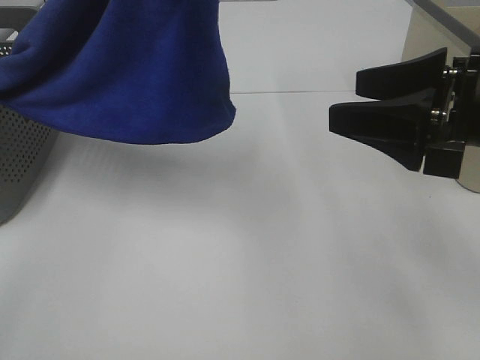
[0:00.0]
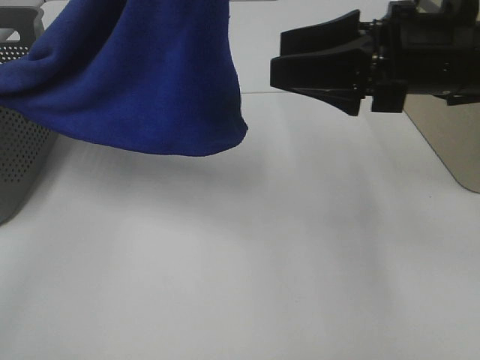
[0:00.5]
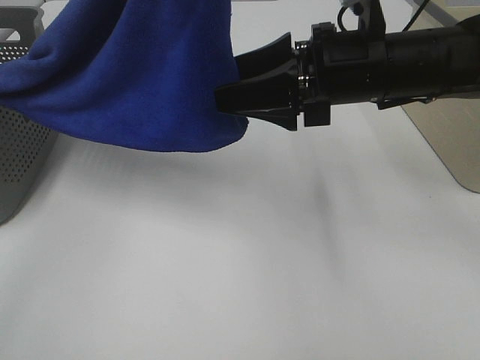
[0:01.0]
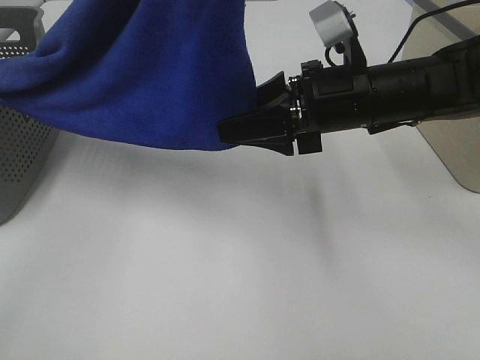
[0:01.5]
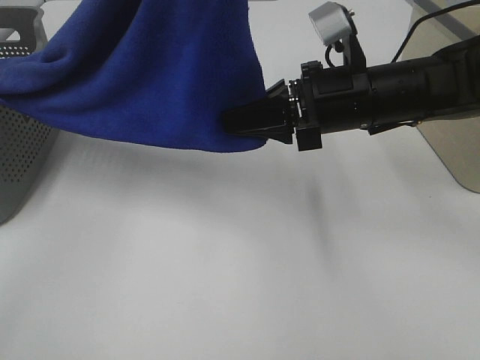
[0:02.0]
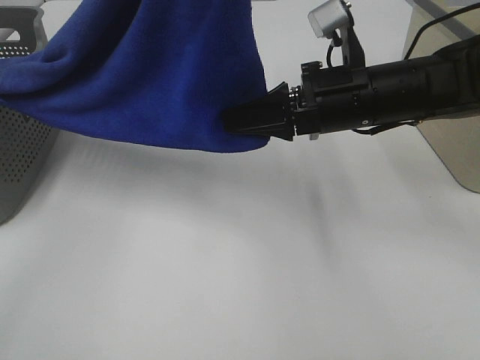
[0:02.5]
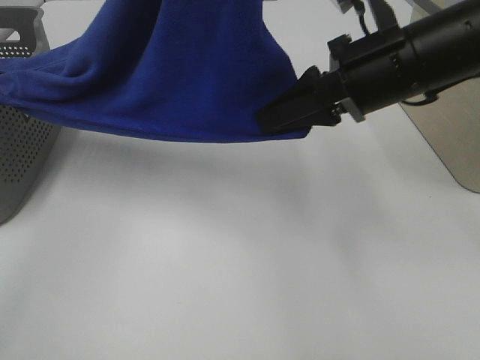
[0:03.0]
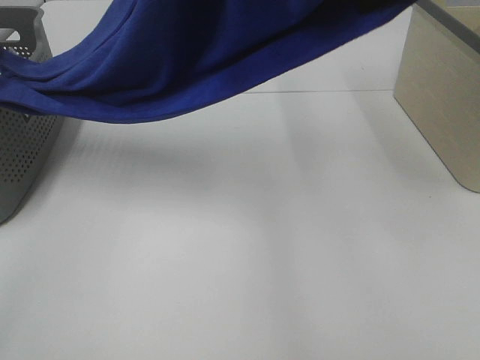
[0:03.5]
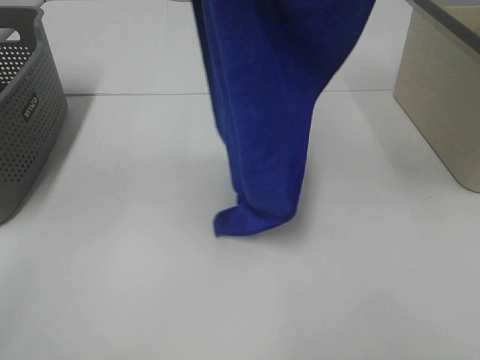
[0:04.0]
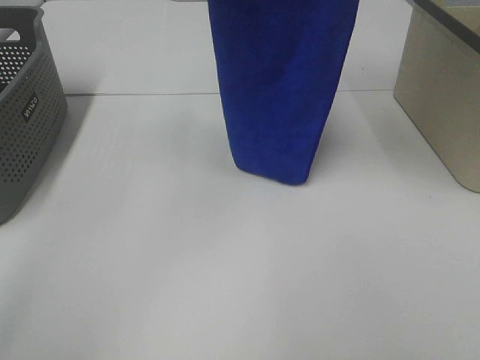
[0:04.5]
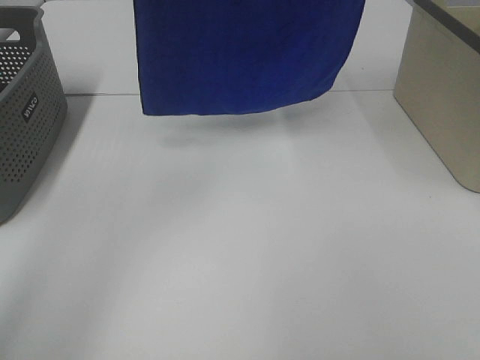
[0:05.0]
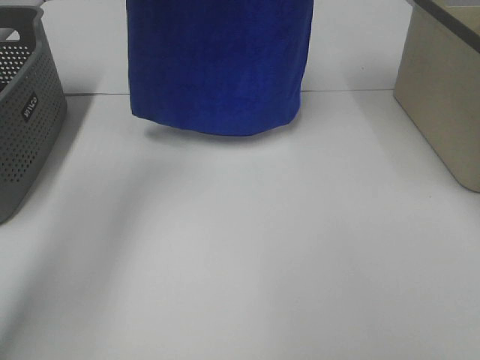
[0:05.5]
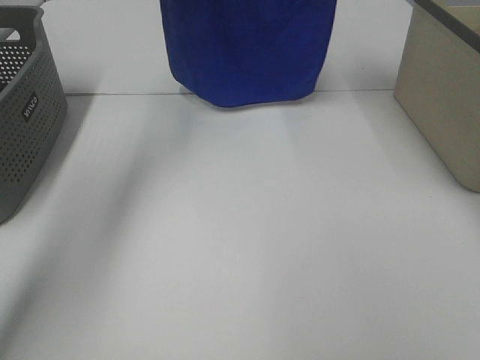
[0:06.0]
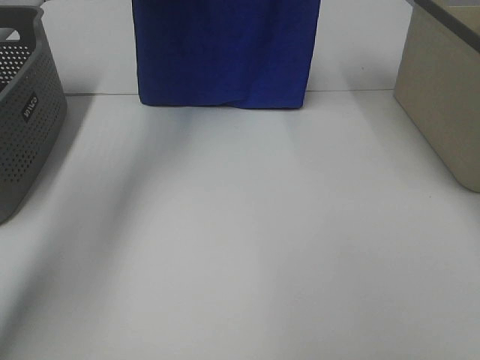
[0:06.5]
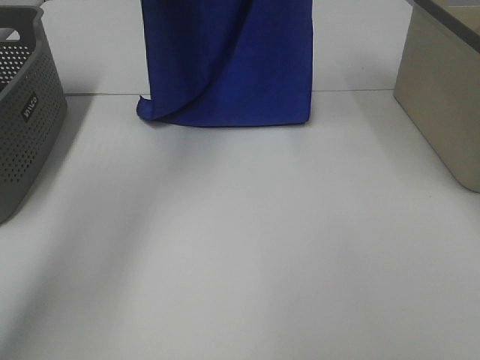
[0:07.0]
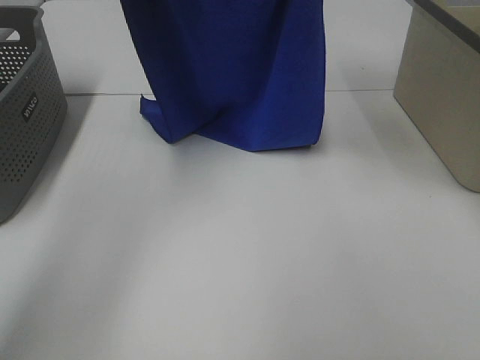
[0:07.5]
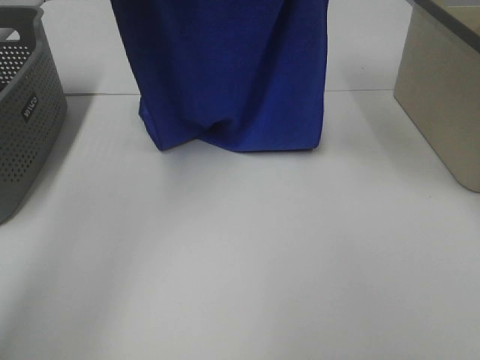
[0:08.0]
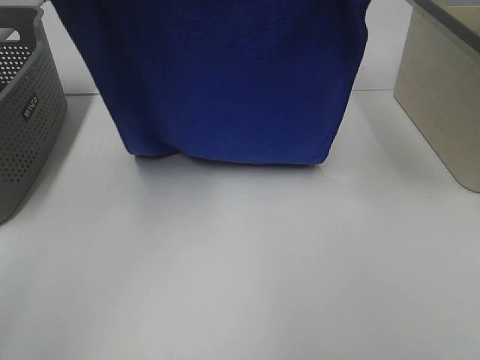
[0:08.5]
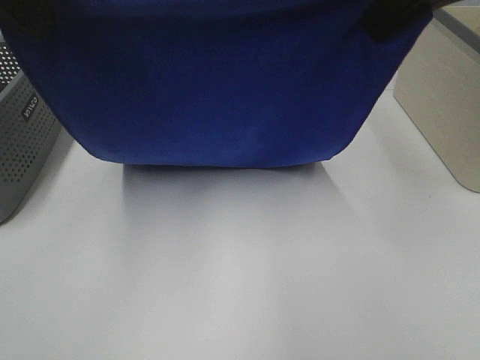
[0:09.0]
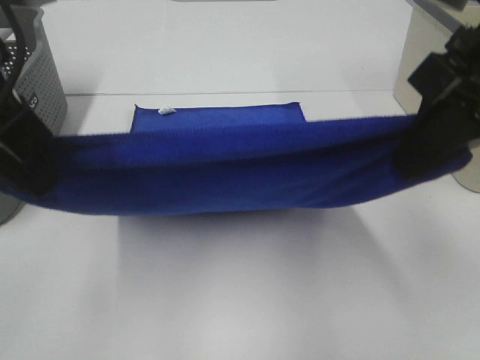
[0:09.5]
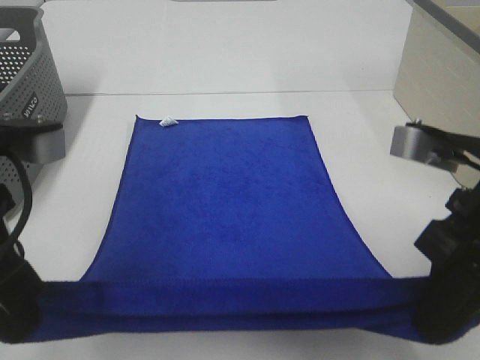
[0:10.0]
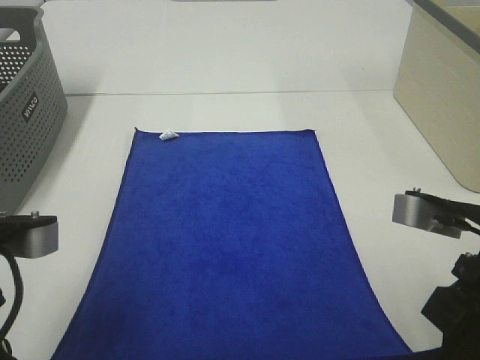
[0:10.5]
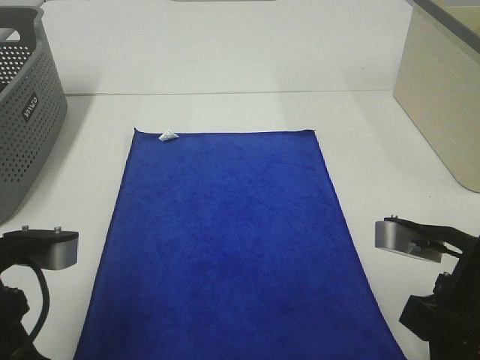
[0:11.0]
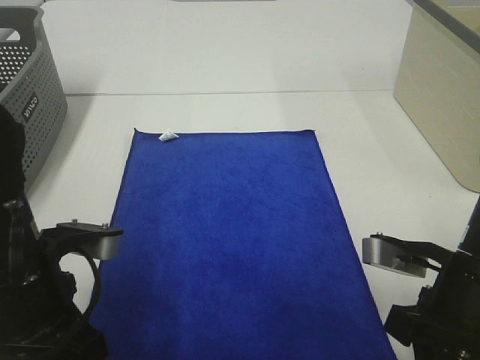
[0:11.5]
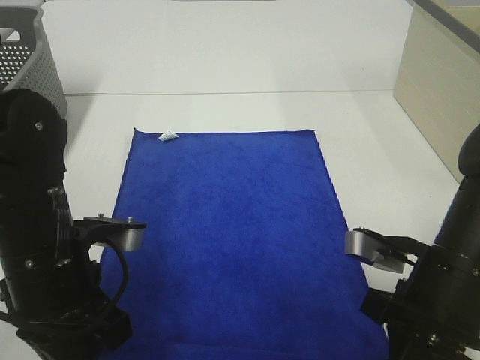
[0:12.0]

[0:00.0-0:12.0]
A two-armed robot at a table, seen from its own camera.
Task of the whole recording: Remove the towel and place it.
Step, 0.0 to 2.0 s: Right hand: grab a corner of the blue towel and straighten it.
Step, 2.5 to 8.5 s: Left hand: spread the blue towel flat on the table.
Step, 2.5 to 8.5 s: Right hand: spread the blue towel flat on the table.
0.0 to 2.0 s: The right gripper shifts some 15 cm forward, to the left and downward, and closes up.
2.0 to 4.0 s: The right gripper moves upward, some 30 cm, while the left gripper changes place by approximately 5 cm.
4.0 to 6.0 s: Both grippers travel together forward, approximately 20 cm.
6.0 to 8.0 s: The two grippers go roughly 10 cm backward.
8.0 to 10.0 s: Both grippers move backward and downward, some 30 cm.
10.0 to 12.0 s: The grippers both shift downward by about 10 cm.

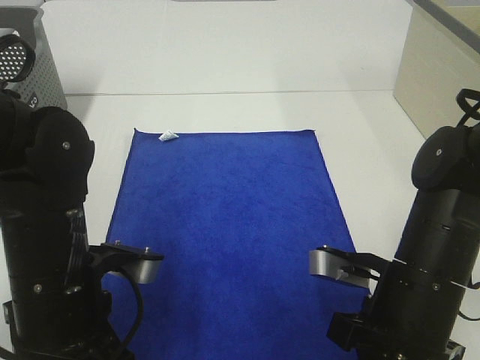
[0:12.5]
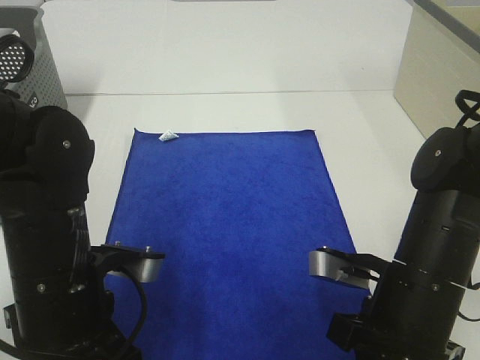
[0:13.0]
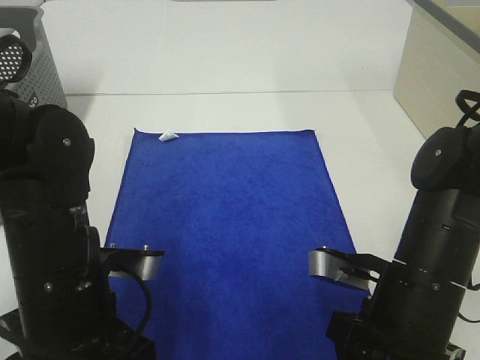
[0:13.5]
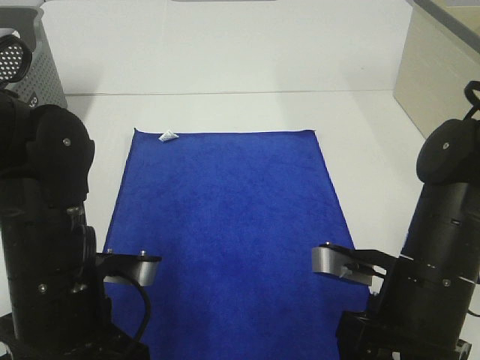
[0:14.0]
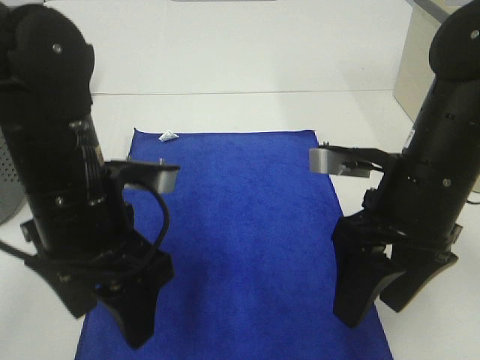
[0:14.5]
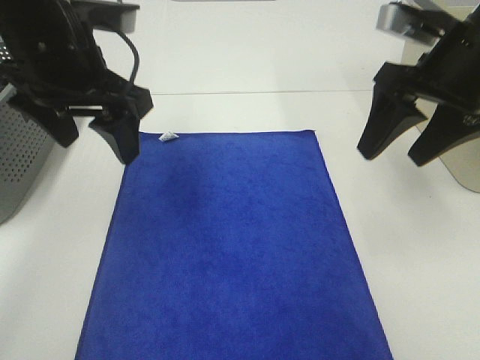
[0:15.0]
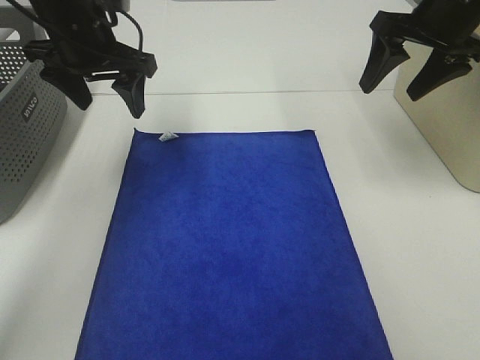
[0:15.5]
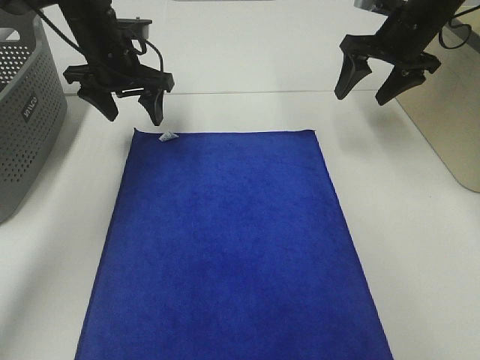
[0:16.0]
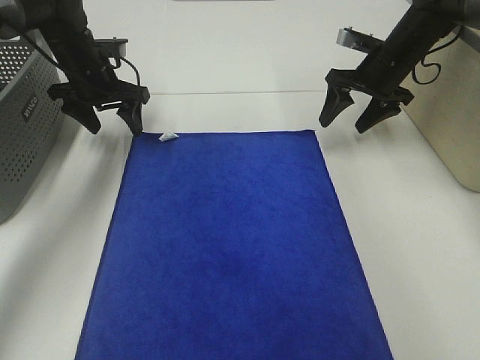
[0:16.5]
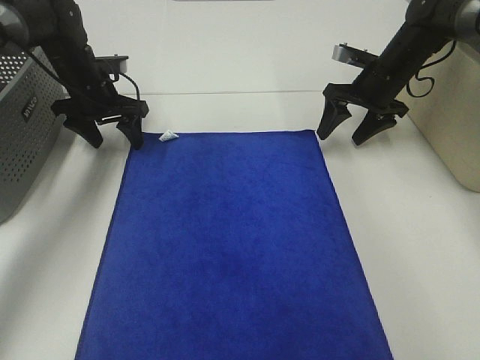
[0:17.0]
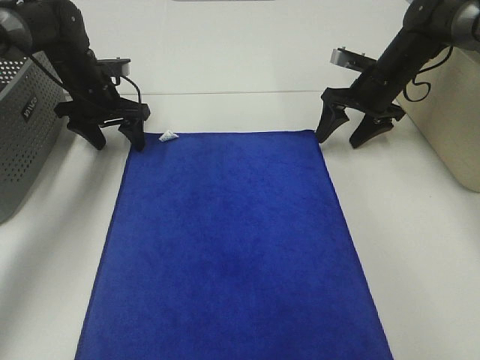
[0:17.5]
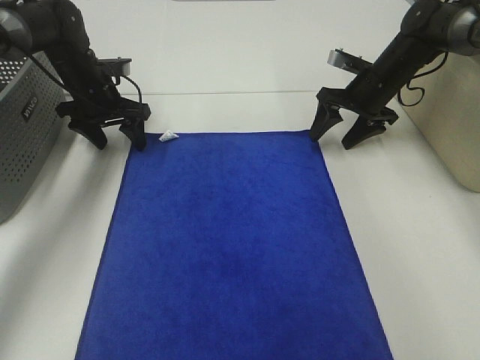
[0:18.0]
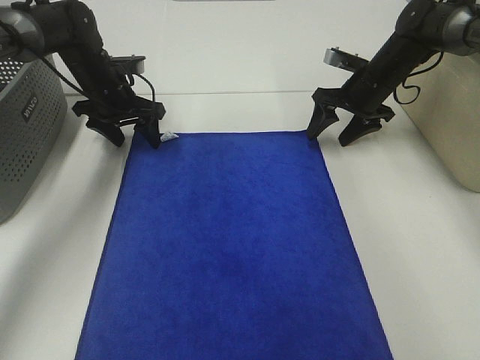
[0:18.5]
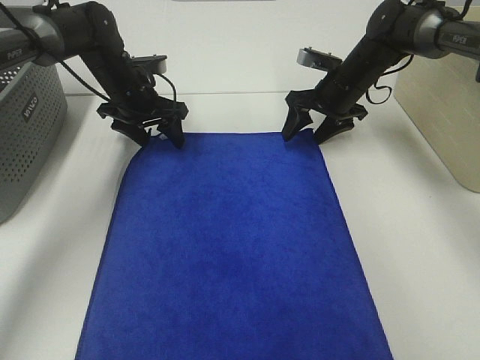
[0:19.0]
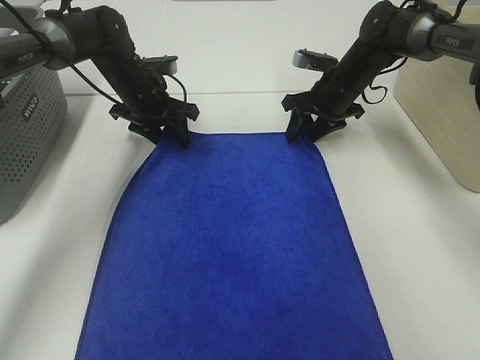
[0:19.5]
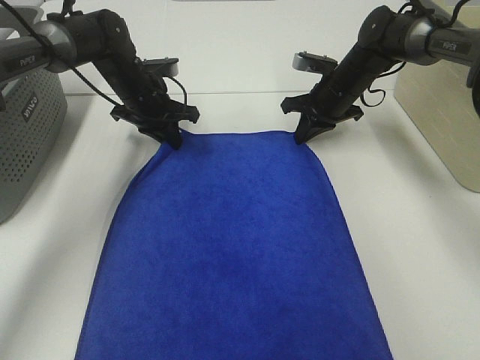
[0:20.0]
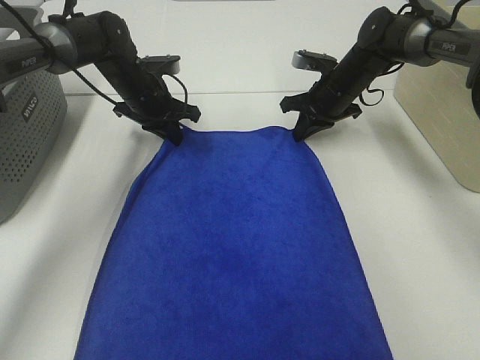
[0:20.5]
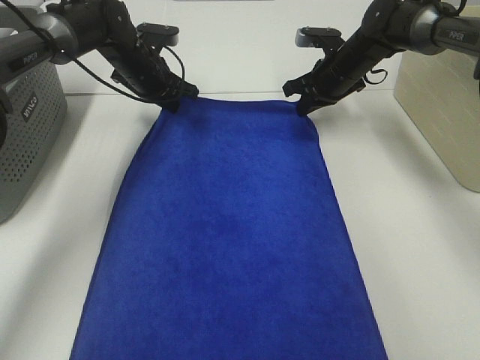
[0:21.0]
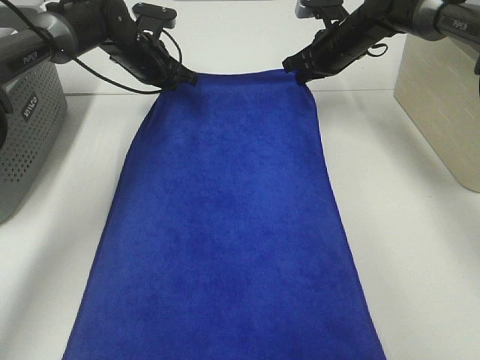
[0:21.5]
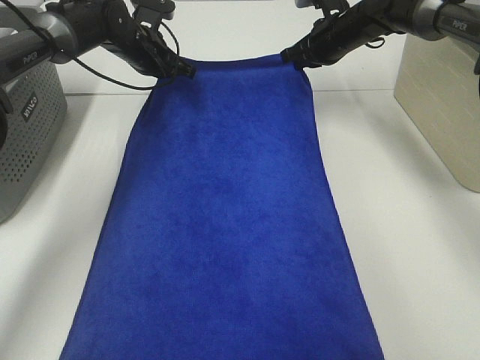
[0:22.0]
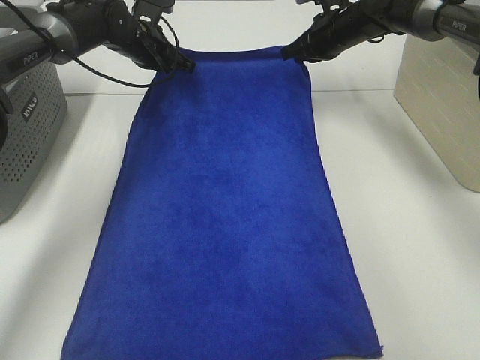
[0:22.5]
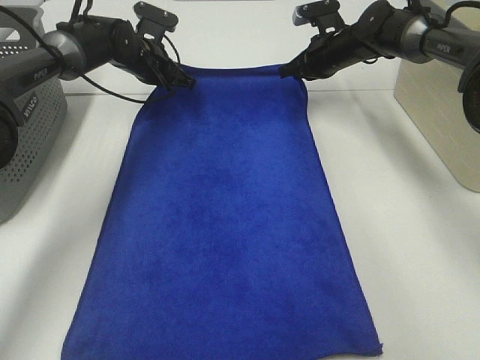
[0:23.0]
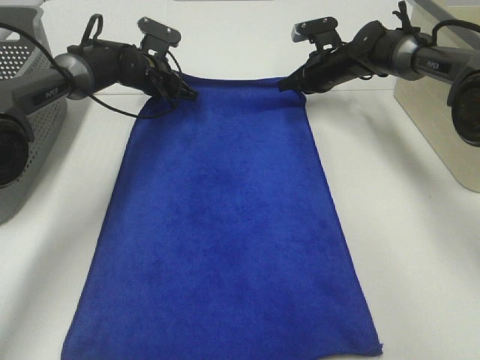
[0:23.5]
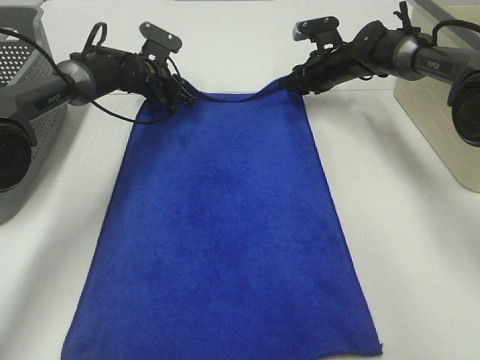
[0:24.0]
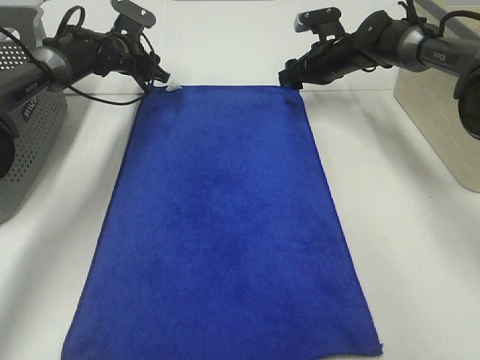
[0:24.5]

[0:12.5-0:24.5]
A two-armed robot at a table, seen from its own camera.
Task of the whole recording: Remove the towel and place it.
Step, 12.5 to 17.0 s: Left hand:adjust the blue towel.
Step, 12.5 to 17.0 s: Right hand:adjust the blue towel.
12.5 to 14.5 s: The right gripper goes roughly 10 cm upward and forward, and opens; the left gripper shifts roughly 5 cm upward, and opens up.
14.5 to 16.5 s: Both grippers move forward, approximately 30 cm.
16.5 to 18.5 s: There are only small adjustments of the grippers.
18.5 to 20.5 s: The right gripper closes, while the left gripper goes about 5 cm to the right, and closes.
20.5 to 22.5 s: The left gripper travels upward and forward by approximately 10 cm. Meanwhile the right gripper shifts approximately 5 cm upward.
22.5 to 24.5 s: The right gripper travels downward by some 5 cm, and opens. The left gripper shifts by roughly 5 cm, and opens.

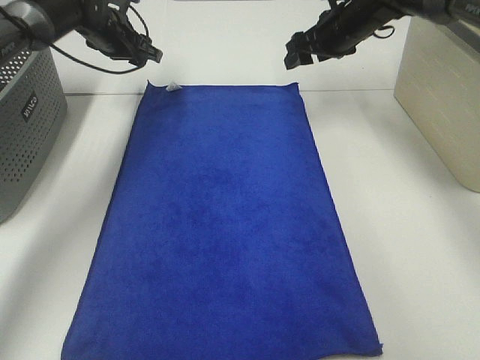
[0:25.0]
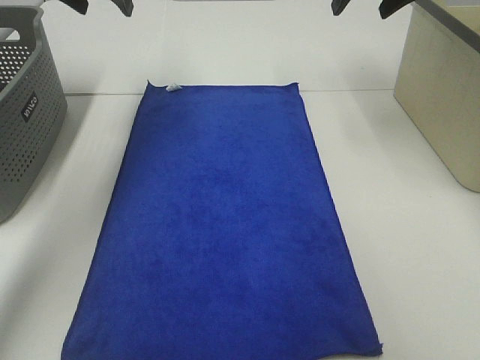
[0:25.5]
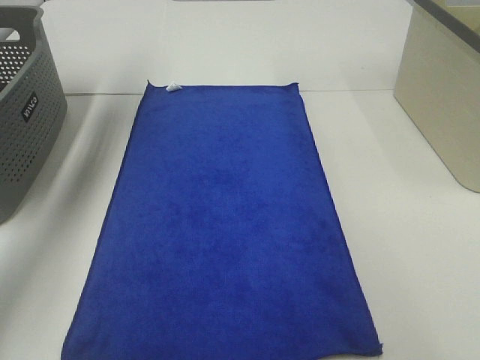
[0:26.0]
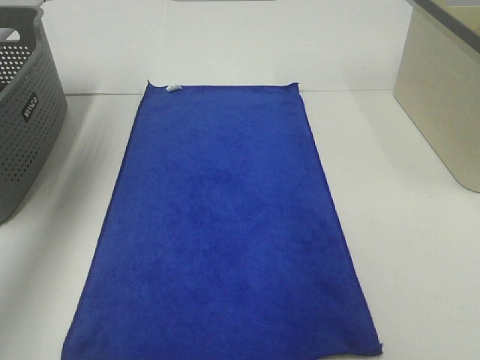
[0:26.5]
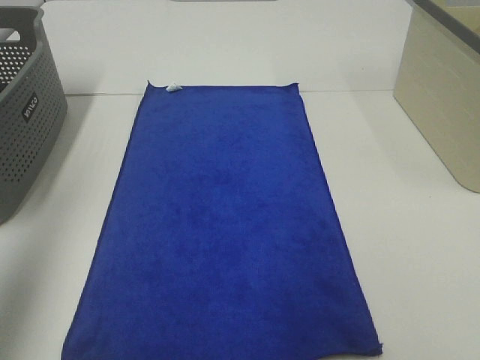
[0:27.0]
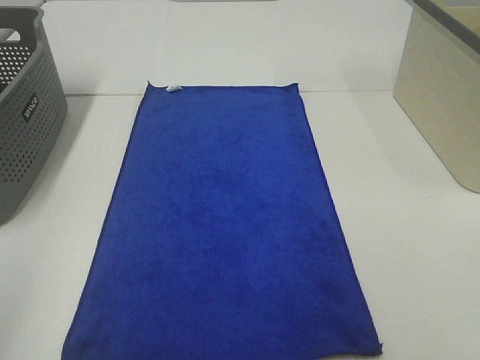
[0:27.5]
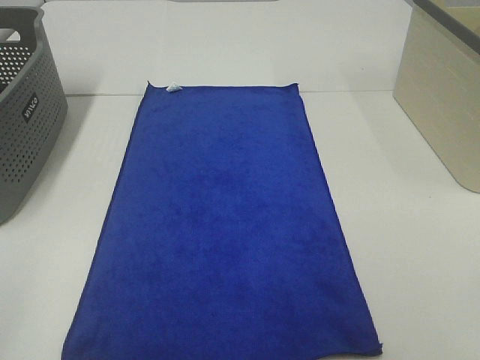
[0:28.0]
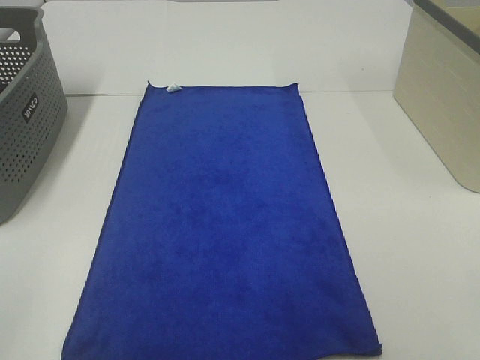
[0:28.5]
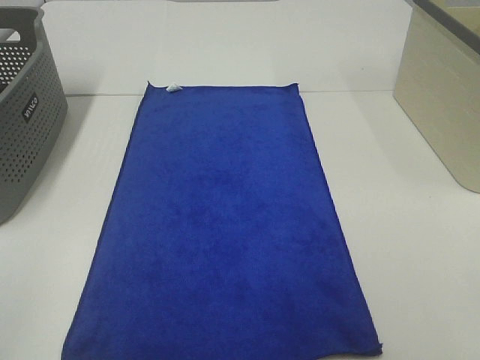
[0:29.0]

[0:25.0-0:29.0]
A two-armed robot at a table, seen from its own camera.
Task of the whole recording: Remove the towel and place it.
25.0 to 27.0 s: The grippers both shift backward and upward by approximately 50 cm.
27.0 to 29.0 s: The left gripper heads backward and downward, covering some 20 cm.
